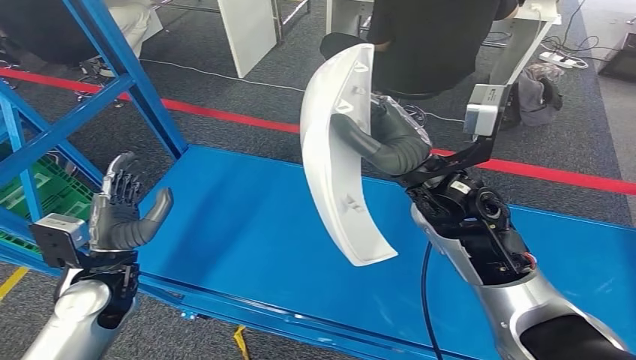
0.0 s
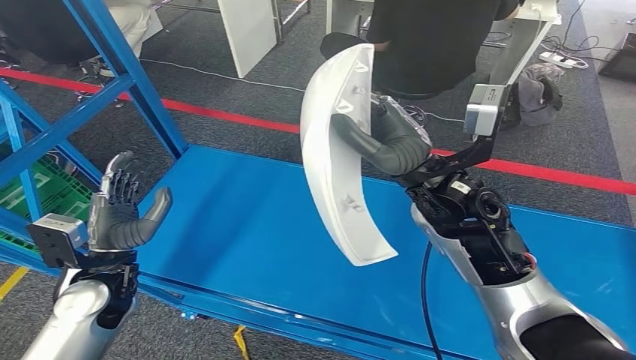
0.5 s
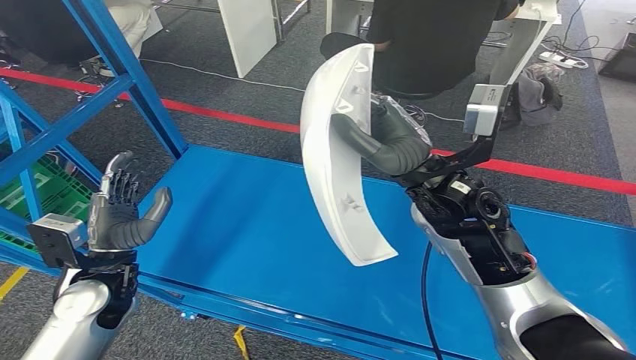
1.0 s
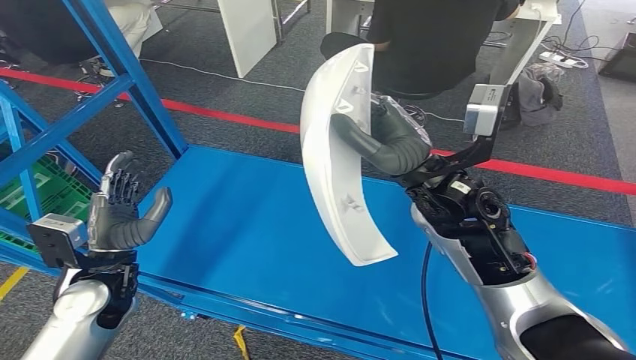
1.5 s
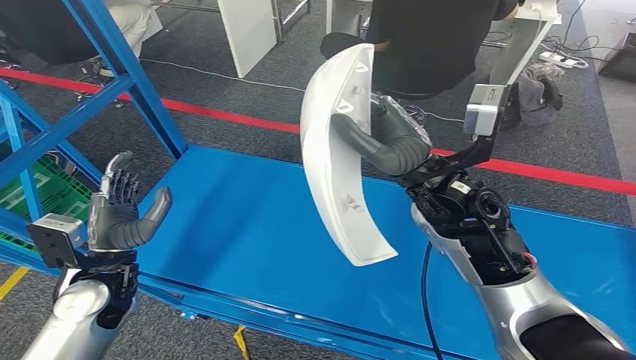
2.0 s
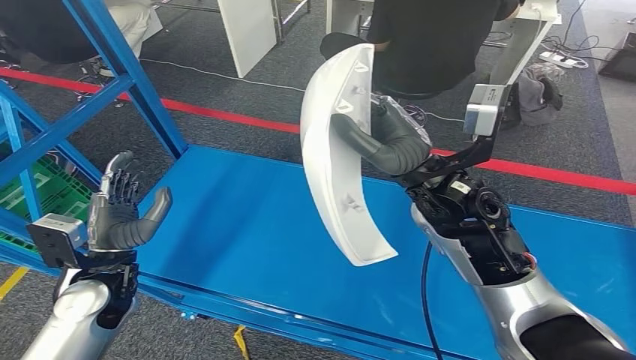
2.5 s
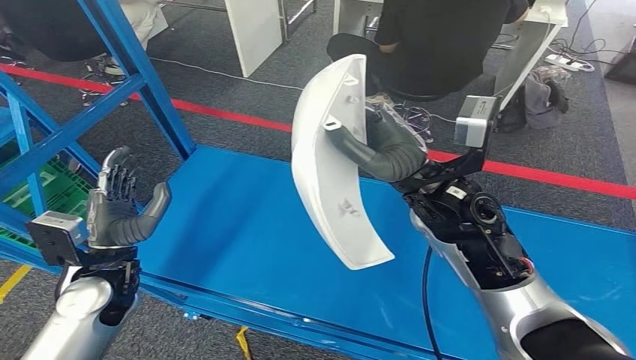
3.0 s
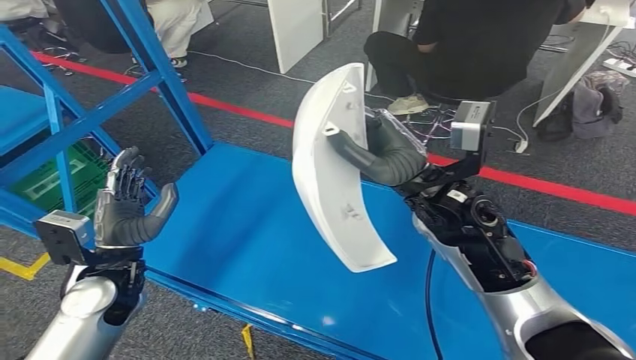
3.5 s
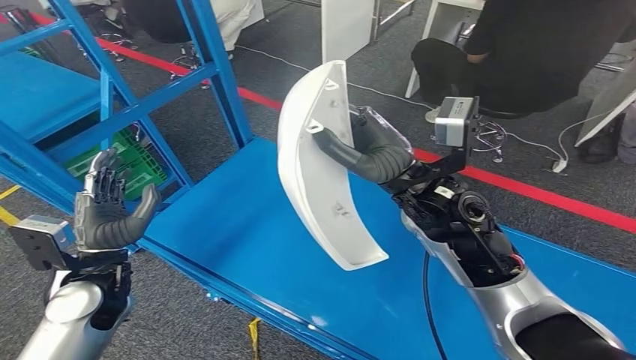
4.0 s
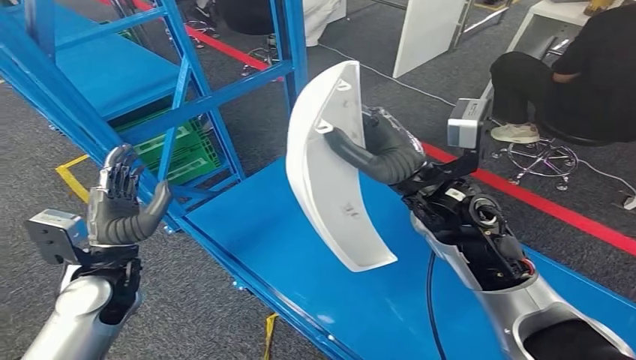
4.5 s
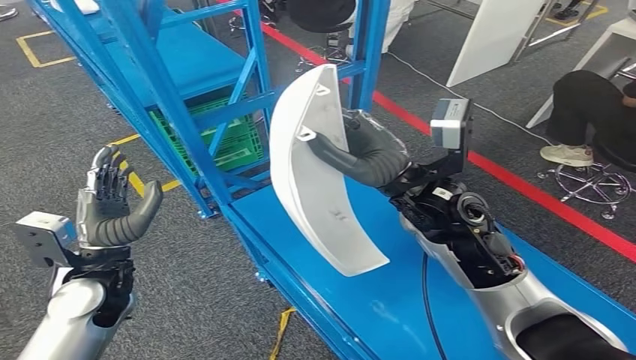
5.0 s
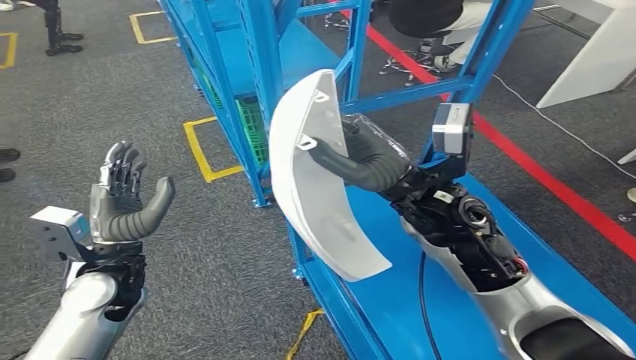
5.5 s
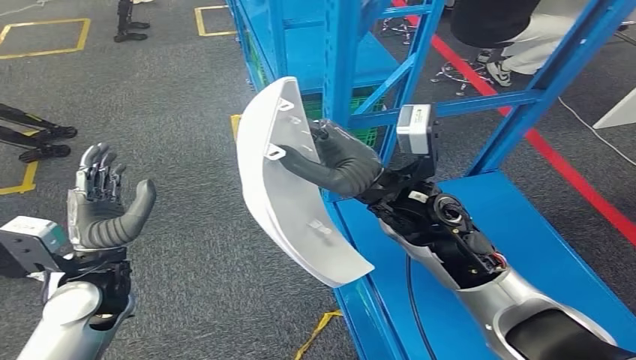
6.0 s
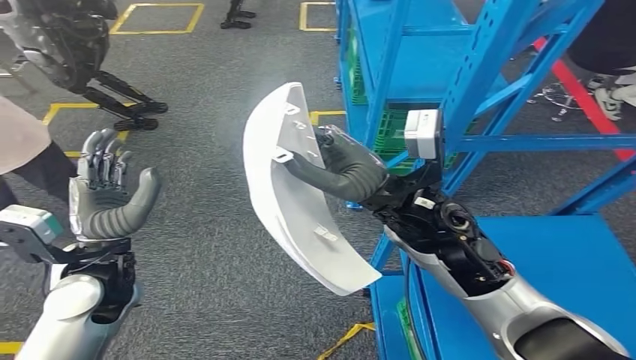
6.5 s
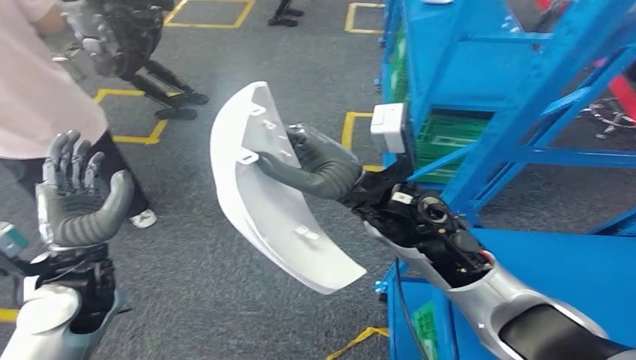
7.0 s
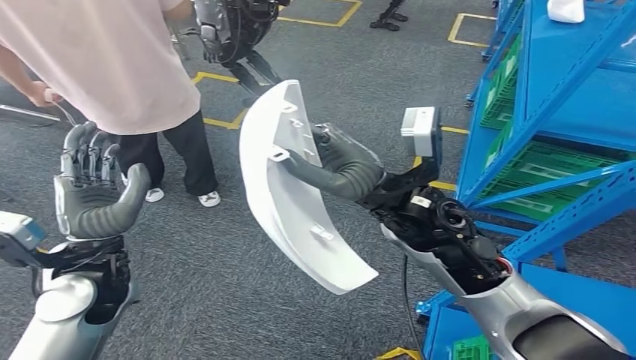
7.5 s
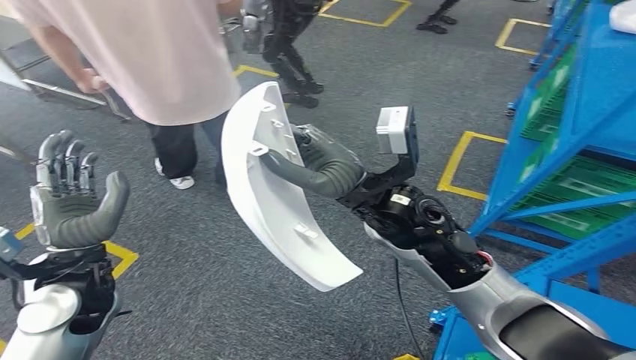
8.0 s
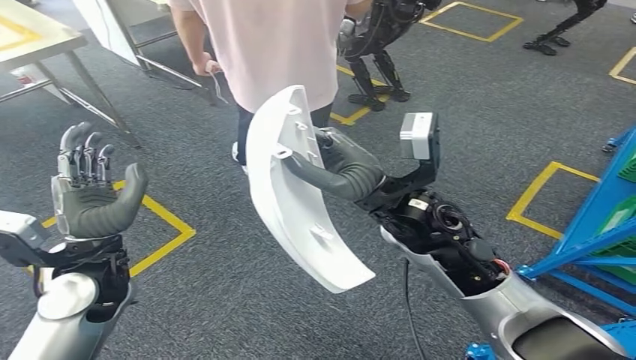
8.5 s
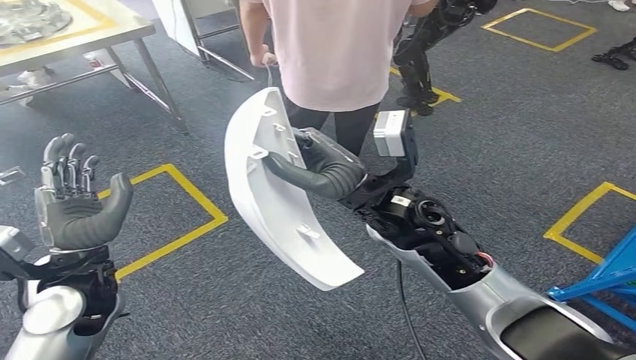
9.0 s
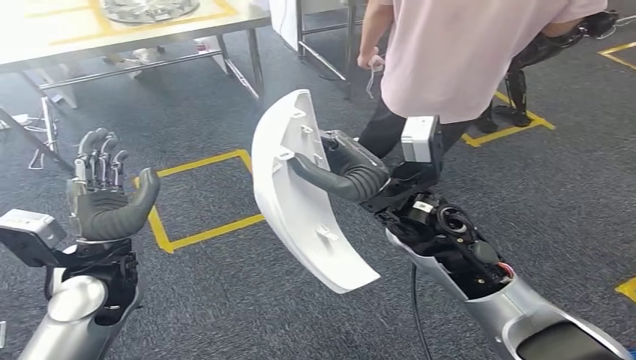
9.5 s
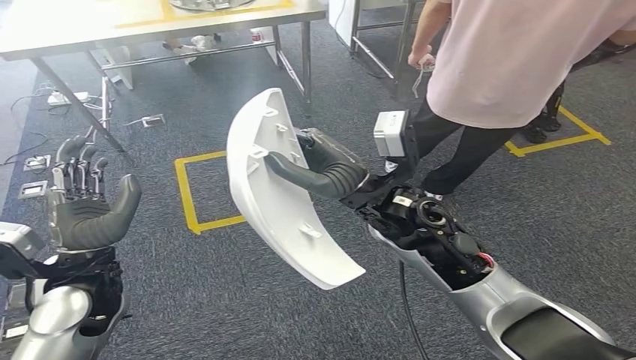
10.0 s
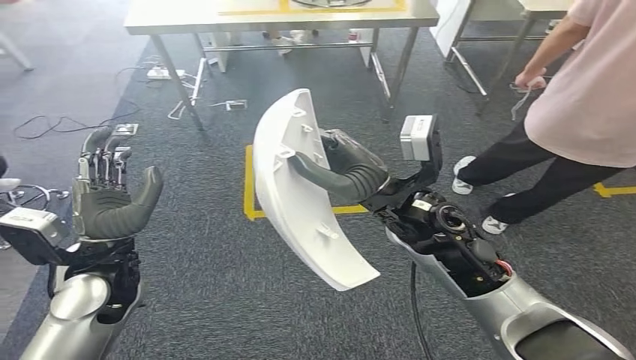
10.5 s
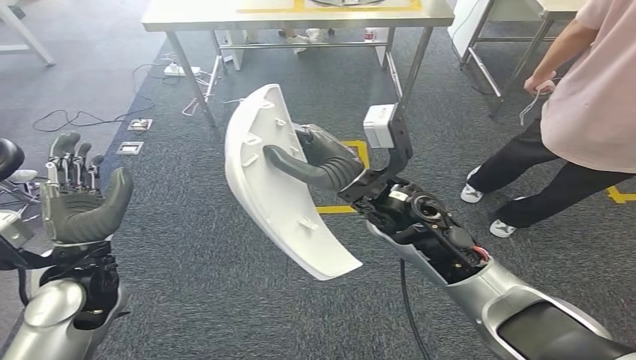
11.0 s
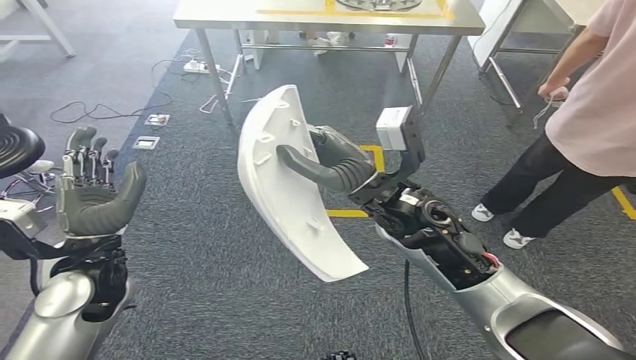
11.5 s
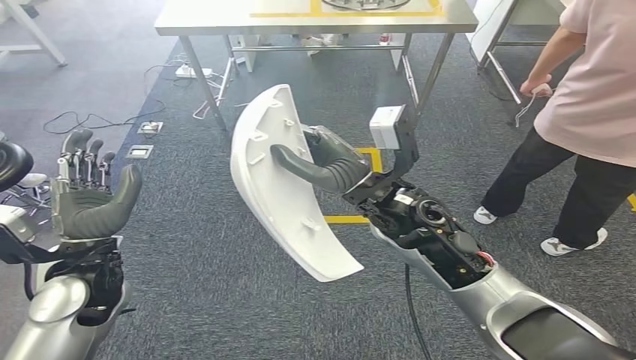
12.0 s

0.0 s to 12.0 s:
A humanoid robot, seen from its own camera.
0.0 to 2.0 s: Neither hand changes place.

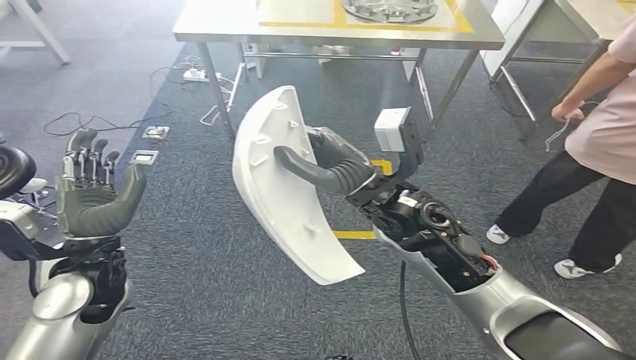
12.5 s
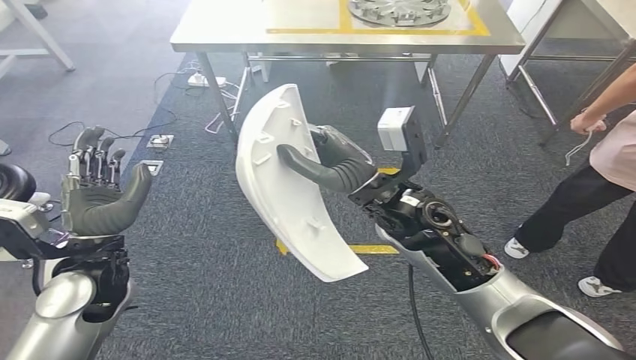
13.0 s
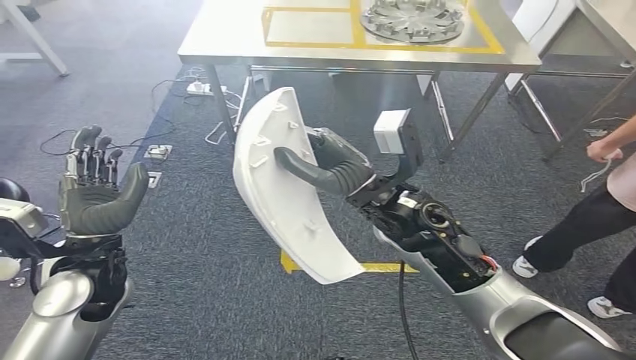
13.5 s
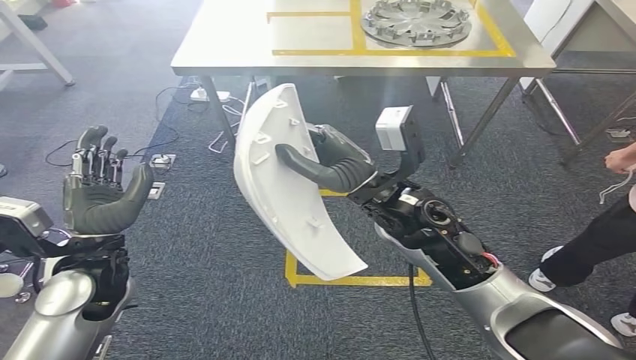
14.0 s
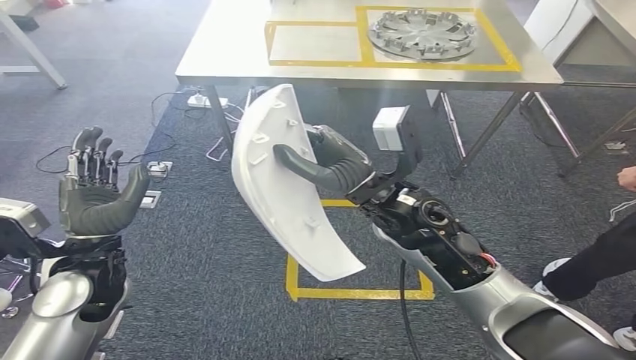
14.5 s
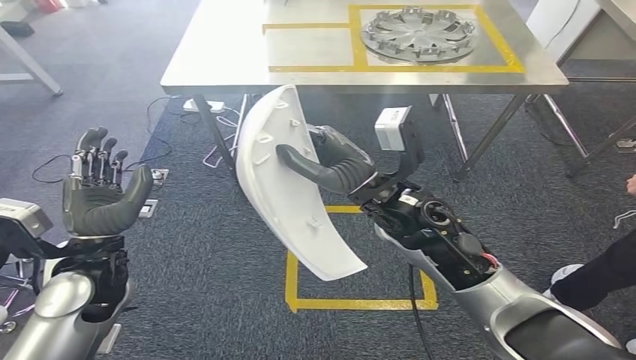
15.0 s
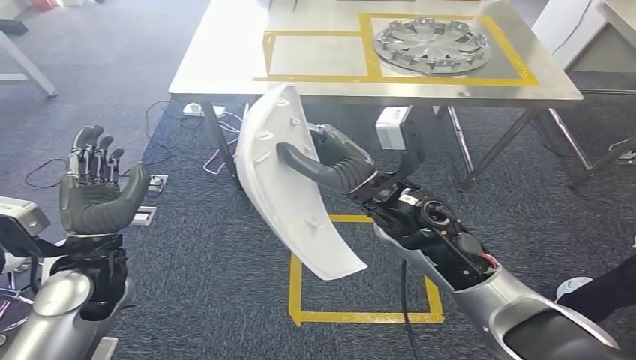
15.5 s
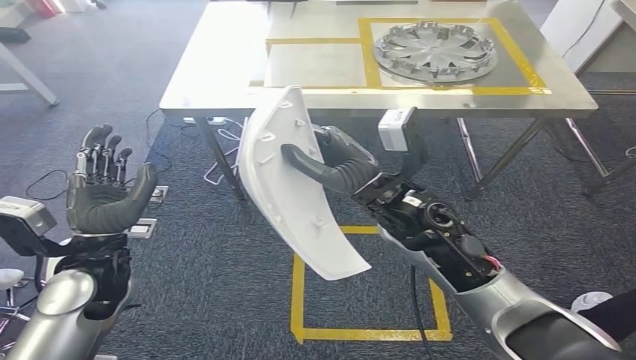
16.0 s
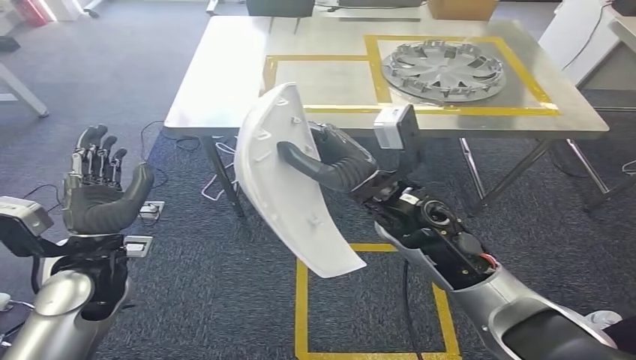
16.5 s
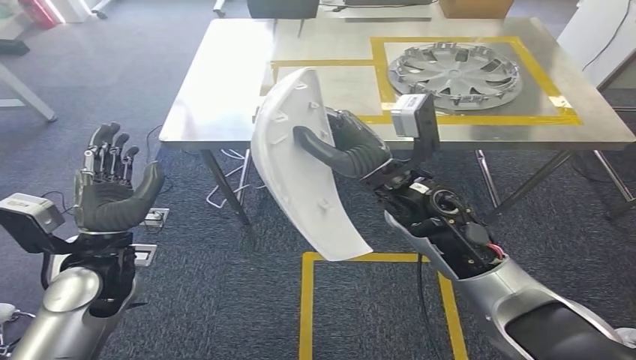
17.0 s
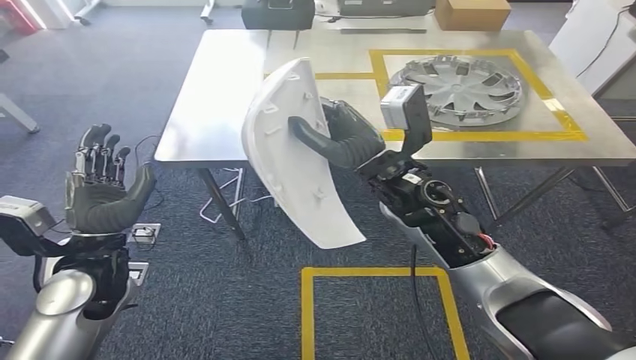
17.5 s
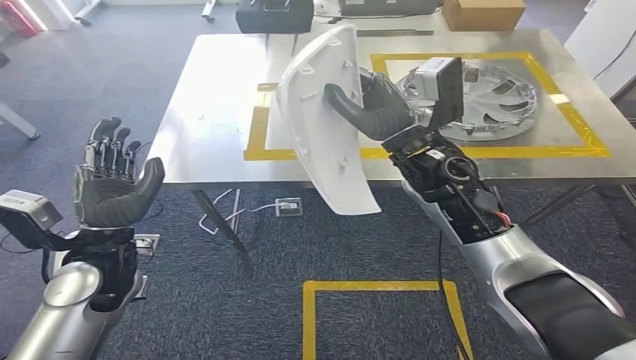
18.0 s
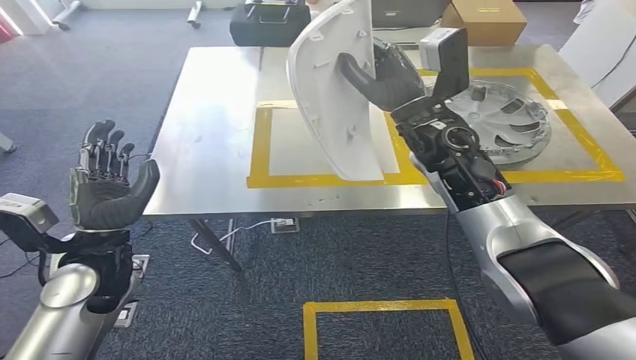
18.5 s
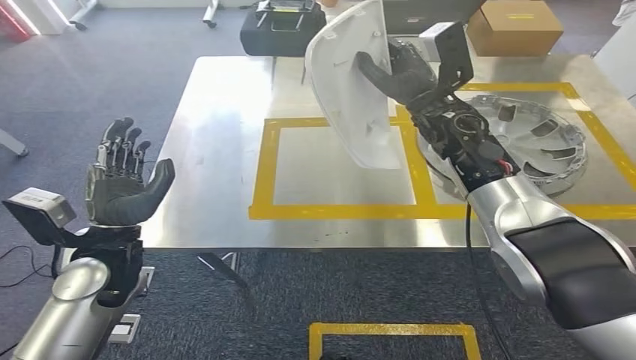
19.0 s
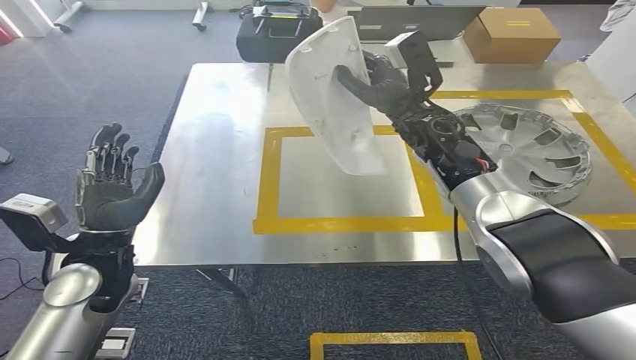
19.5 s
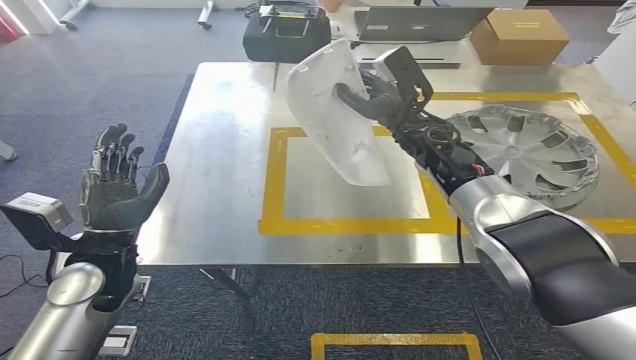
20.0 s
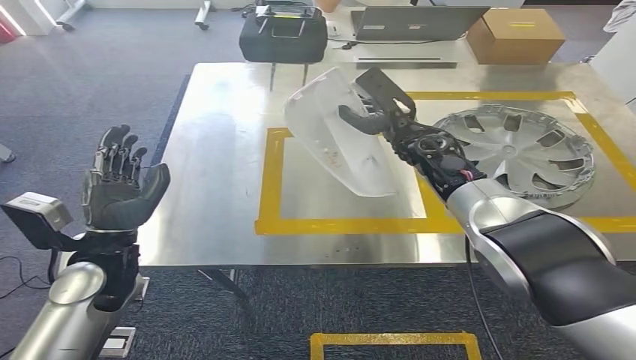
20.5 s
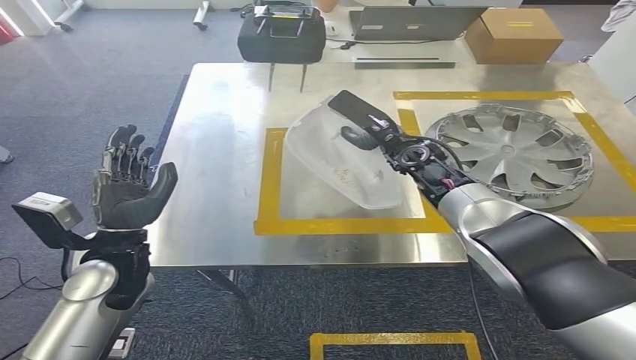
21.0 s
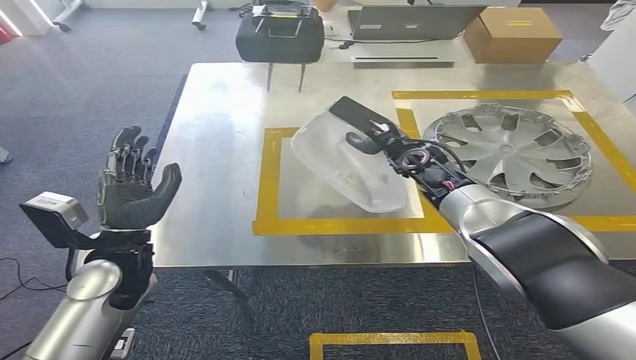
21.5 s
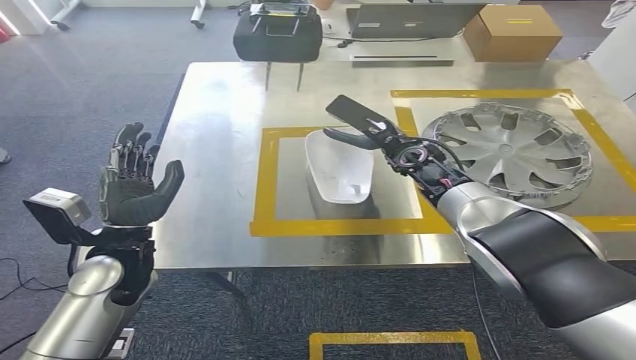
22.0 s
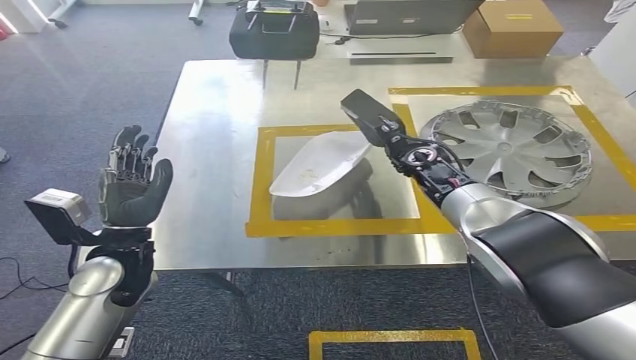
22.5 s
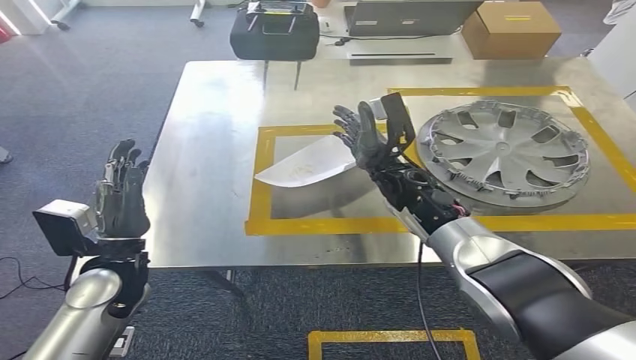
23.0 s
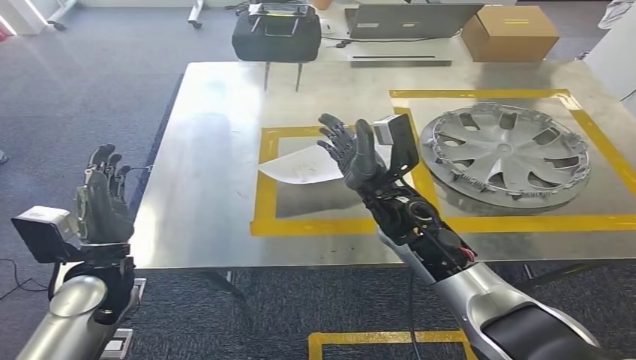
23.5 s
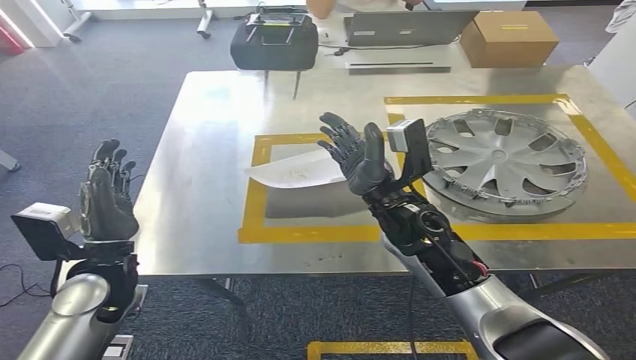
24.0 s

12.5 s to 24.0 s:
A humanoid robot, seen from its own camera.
Step, 12.5 to 19.5 s: Bring the small component to the front of the workbench.
Step, 20.0 to 23.5 s: Insert the small component into the corresponding slot on the workbench.
